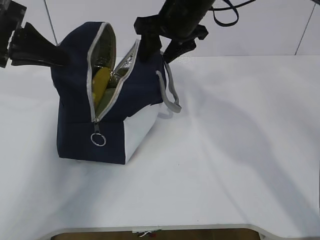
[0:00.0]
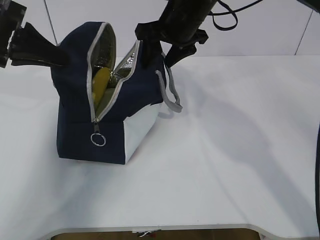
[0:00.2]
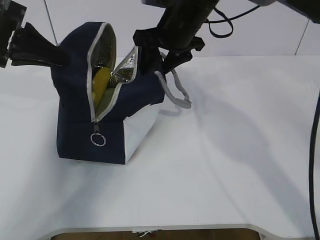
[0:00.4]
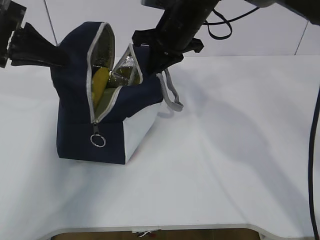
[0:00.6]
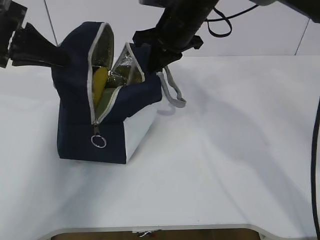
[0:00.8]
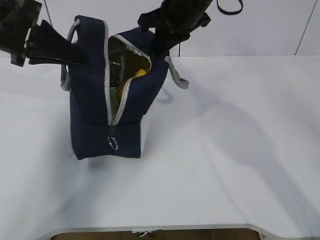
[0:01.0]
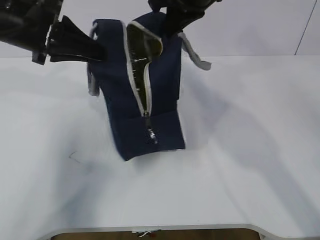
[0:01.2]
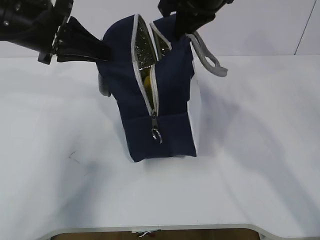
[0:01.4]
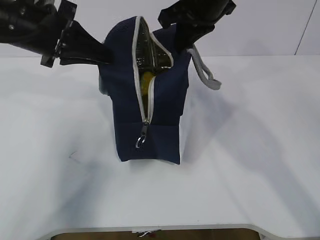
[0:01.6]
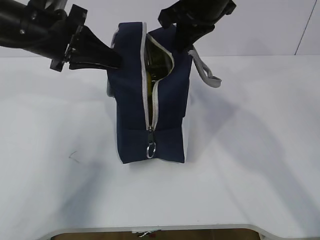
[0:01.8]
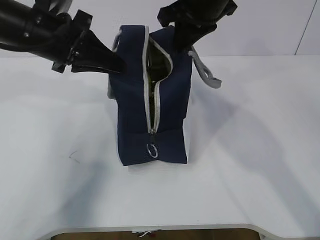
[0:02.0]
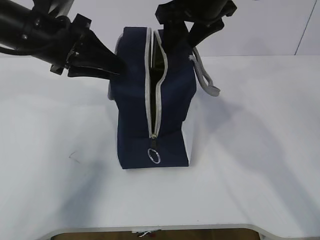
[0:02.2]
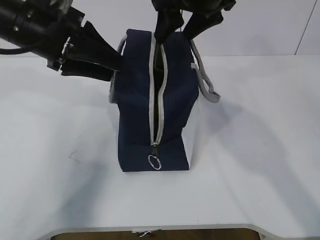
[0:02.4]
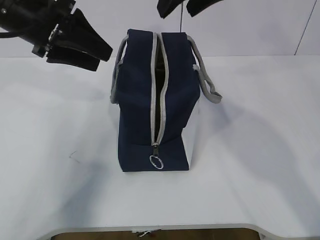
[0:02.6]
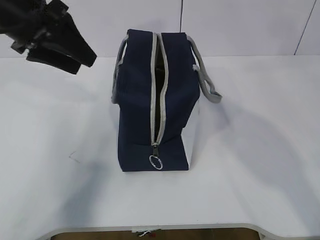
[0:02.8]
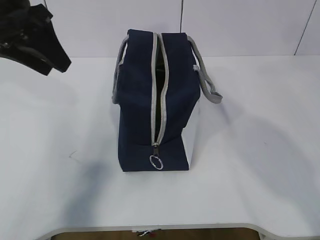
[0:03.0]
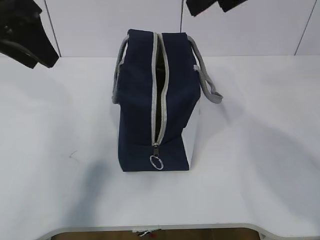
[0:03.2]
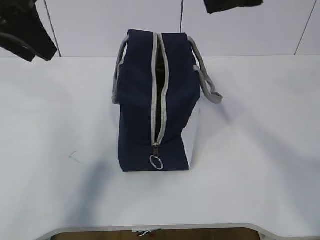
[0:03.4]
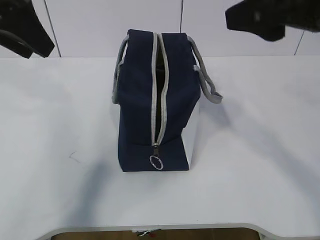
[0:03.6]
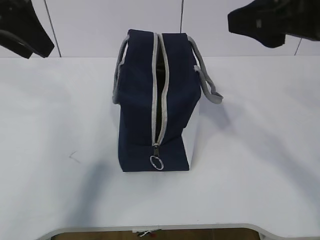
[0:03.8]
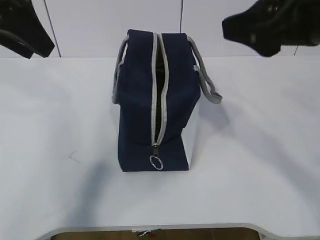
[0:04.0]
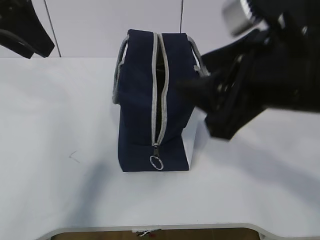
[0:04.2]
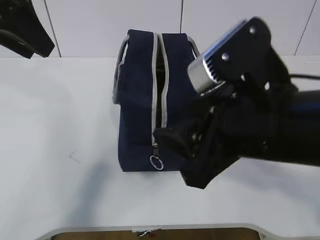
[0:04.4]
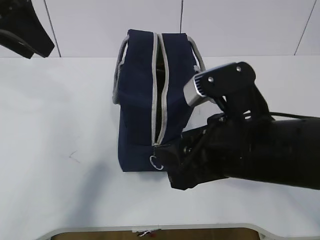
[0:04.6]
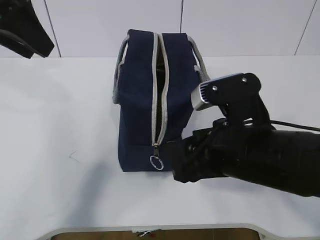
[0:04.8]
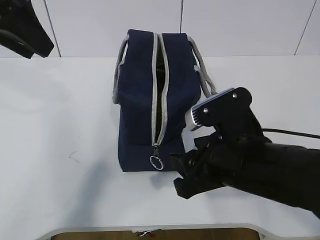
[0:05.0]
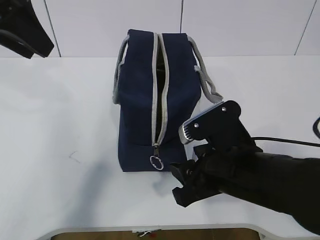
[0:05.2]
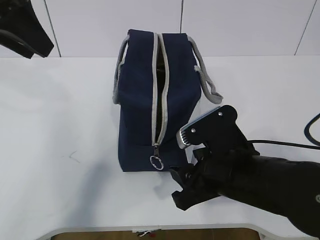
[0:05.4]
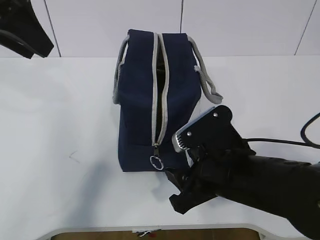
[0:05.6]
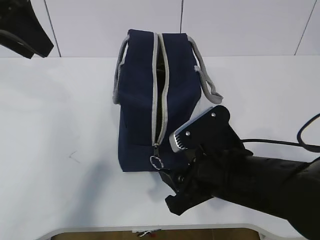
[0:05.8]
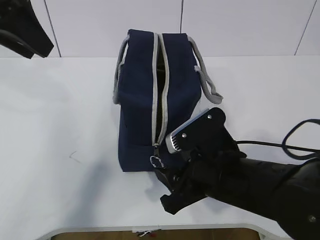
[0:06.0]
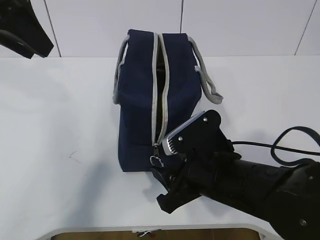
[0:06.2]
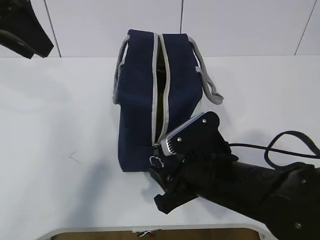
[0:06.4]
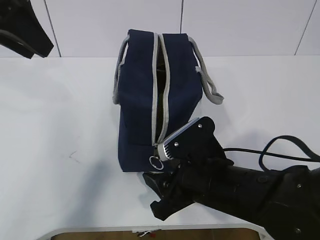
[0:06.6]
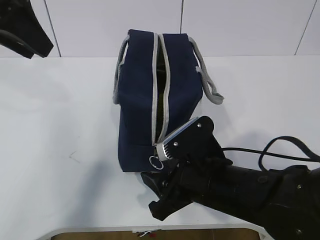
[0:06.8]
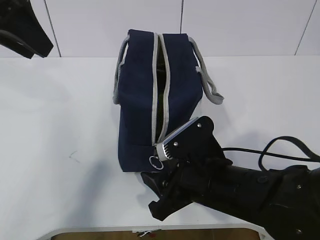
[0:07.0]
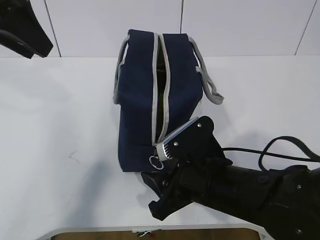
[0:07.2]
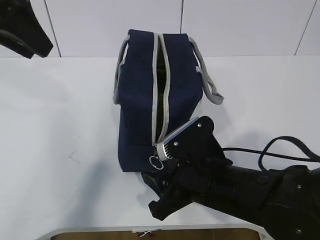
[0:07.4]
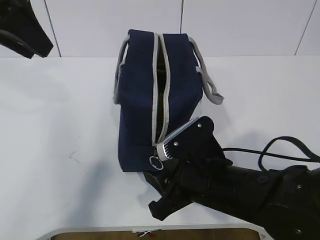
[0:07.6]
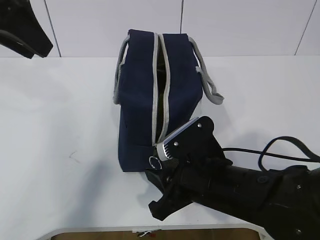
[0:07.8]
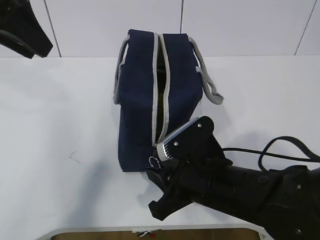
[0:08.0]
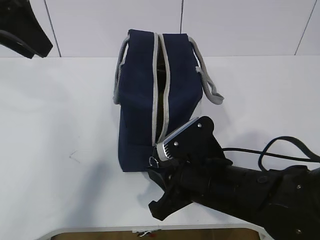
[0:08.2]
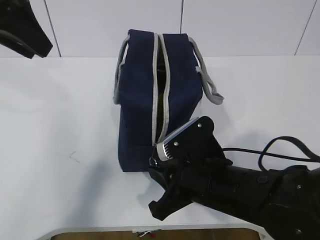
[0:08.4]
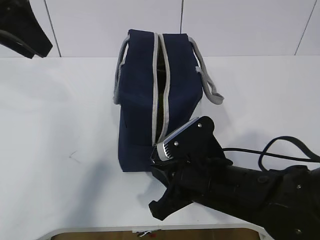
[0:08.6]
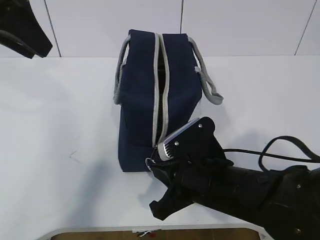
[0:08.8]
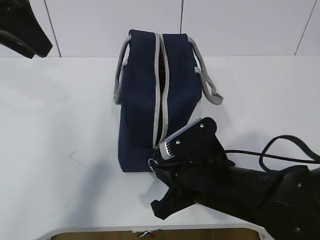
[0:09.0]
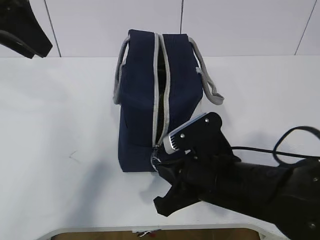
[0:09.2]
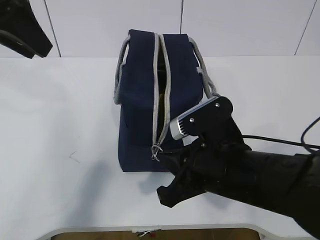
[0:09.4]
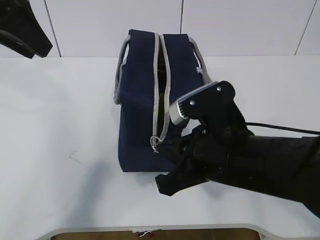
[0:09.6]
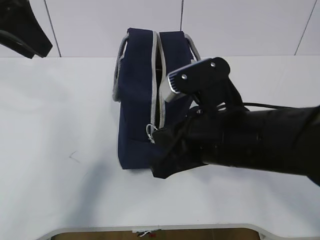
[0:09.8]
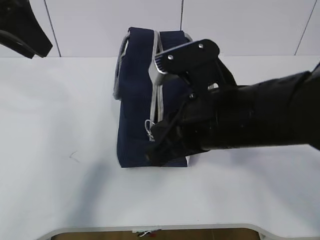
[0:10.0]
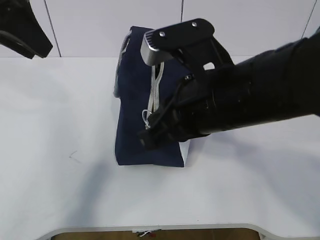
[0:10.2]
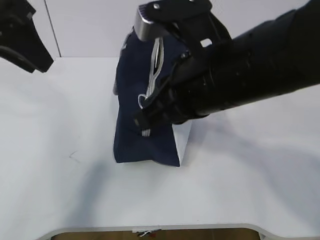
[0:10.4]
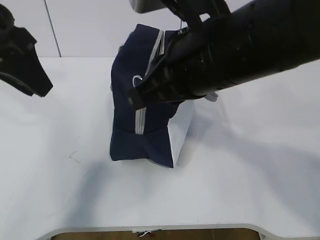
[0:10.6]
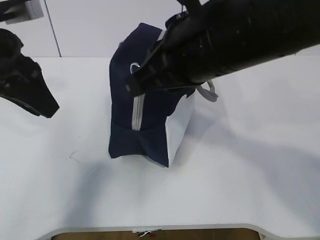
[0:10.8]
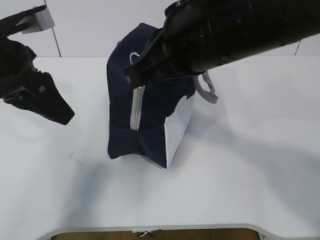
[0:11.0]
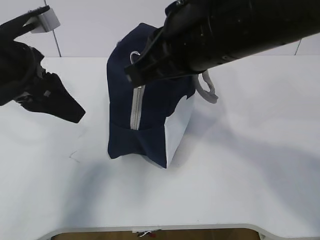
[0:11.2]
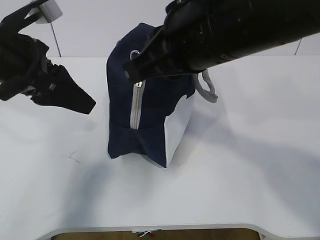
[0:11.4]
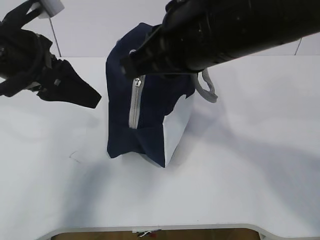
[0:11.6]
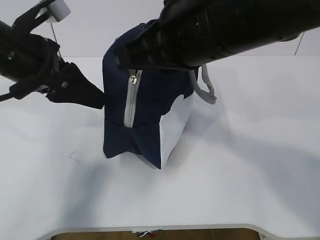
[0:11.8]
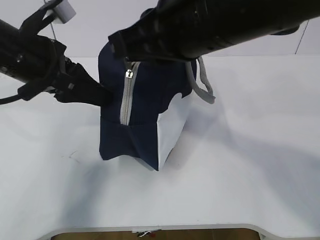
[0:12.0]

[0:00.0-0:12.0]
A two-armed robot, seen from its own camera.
0:00.0 to 0:01.6: The left gripper goes roughly 5 cm to the right. Meanwhile the right gripper ends up some 5 cm from where it was, and closes its fingers.
0:01.6 to 0:03.0: The left gripper opens; the right gripper moves upward and backward, about 10 cm, and opens.
0:03.0 to 0:04.4: The right gripper heads downward and backward, covering approximately 20 cm. Meanwhile the left gripper ends up about 5 cm from where it was.
0:04.4 to 0:06.0: The right gripper shifts approximately 10 cm downward.
0:06.0 to 0:07.6: There are only small adjustments of the grippers.
0:07.6 to 0:09.0: The right gripper closes up.
0:09.0 to 0:10.4: The right gripper is displaced upward by some 15 cm.
0:10.4 to 0:12.0: The right gripper goes about 5 cm upward. Meanwhile the left gripper heads downward, covering roughly 10 cm.

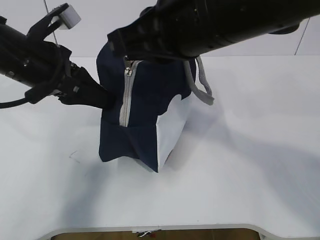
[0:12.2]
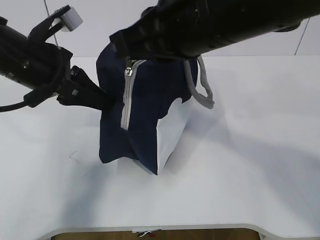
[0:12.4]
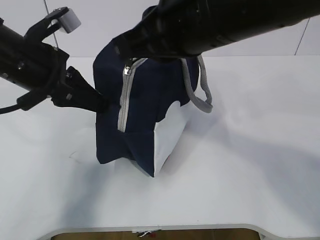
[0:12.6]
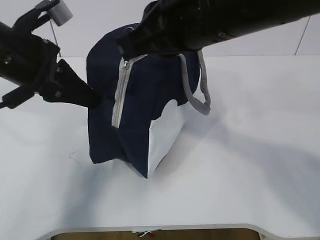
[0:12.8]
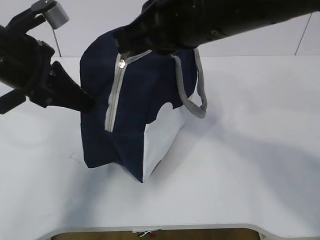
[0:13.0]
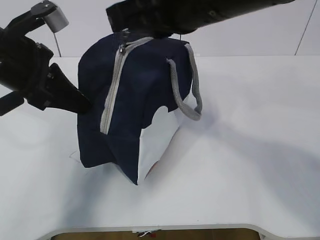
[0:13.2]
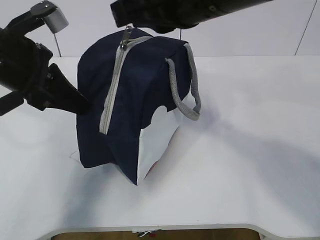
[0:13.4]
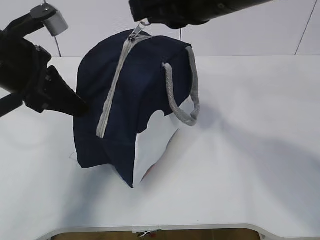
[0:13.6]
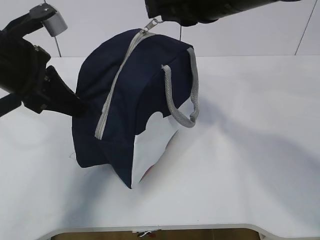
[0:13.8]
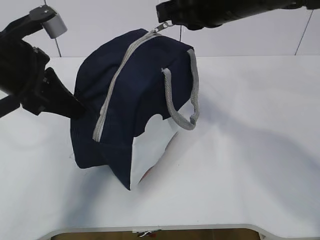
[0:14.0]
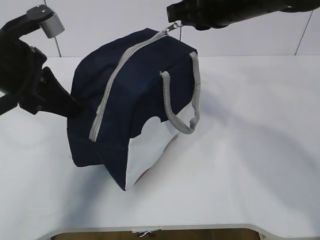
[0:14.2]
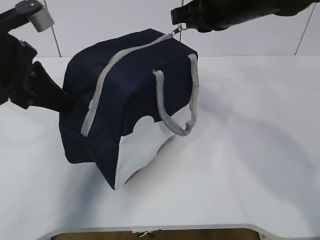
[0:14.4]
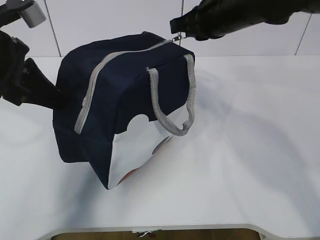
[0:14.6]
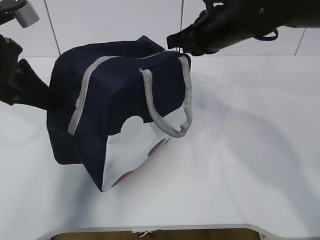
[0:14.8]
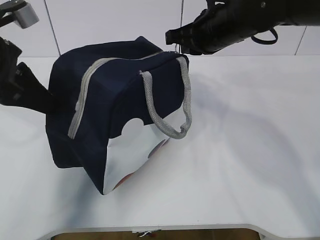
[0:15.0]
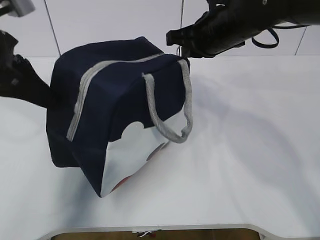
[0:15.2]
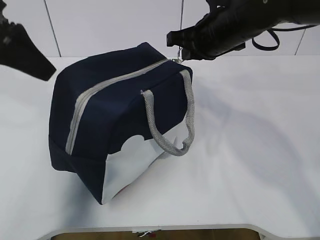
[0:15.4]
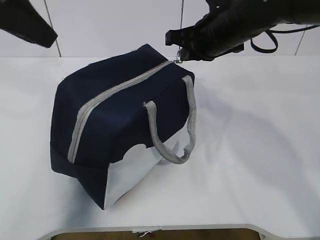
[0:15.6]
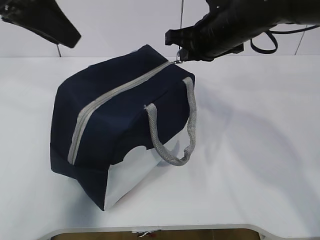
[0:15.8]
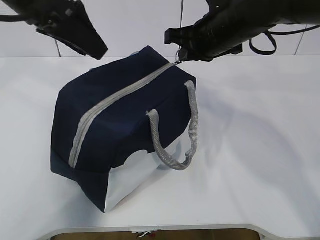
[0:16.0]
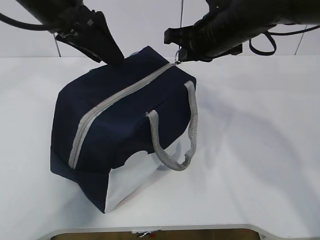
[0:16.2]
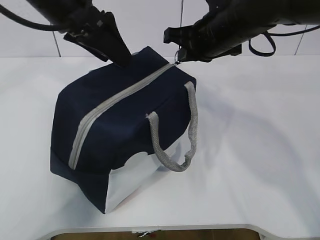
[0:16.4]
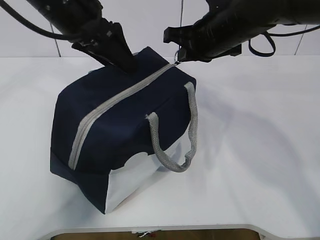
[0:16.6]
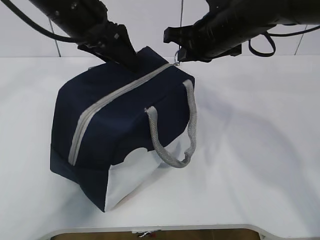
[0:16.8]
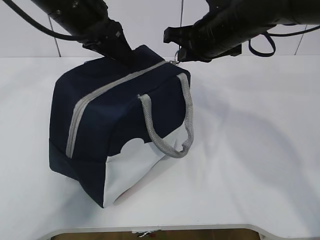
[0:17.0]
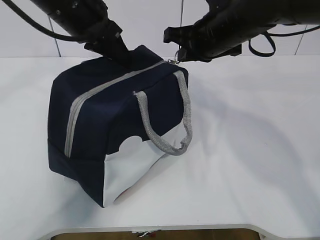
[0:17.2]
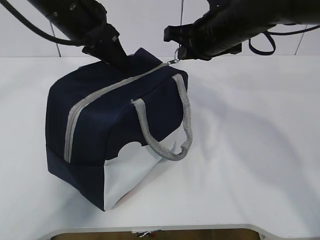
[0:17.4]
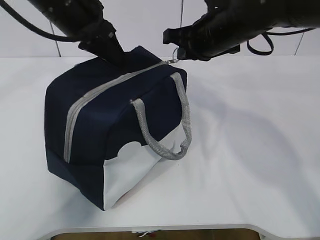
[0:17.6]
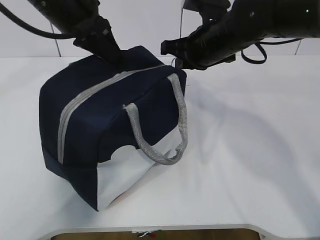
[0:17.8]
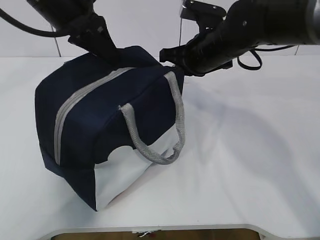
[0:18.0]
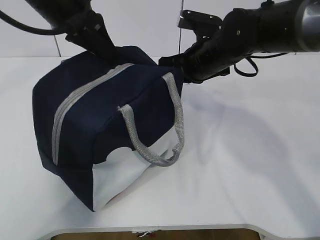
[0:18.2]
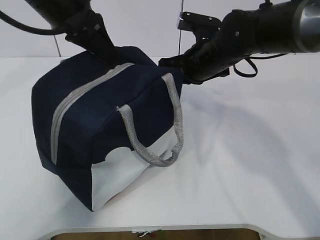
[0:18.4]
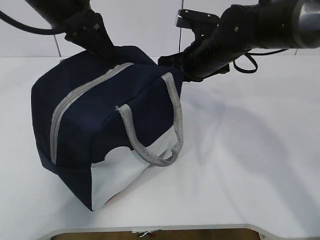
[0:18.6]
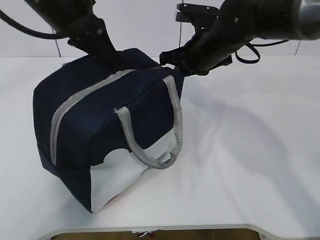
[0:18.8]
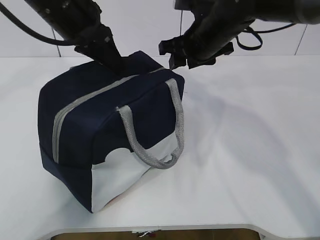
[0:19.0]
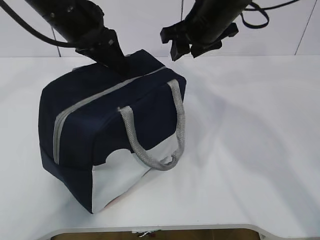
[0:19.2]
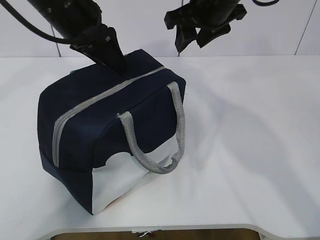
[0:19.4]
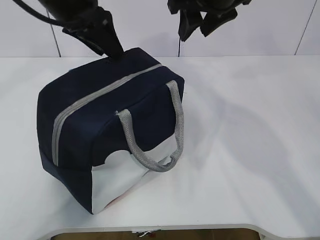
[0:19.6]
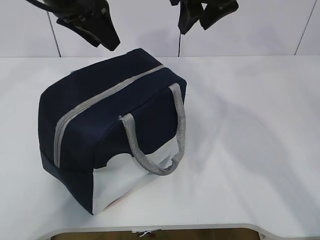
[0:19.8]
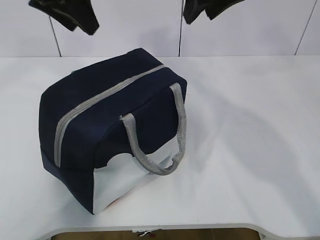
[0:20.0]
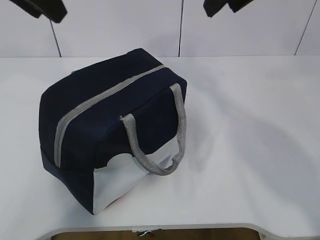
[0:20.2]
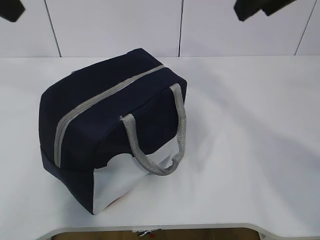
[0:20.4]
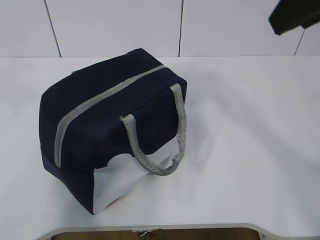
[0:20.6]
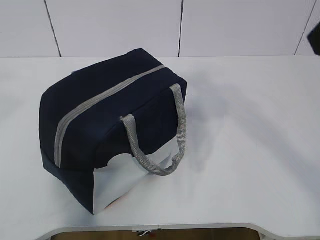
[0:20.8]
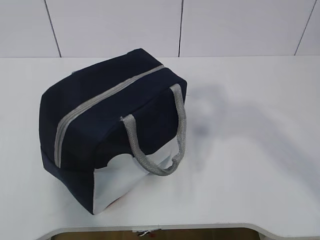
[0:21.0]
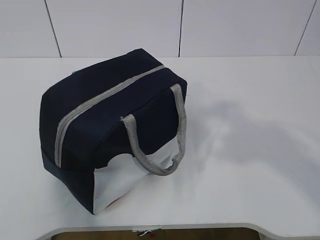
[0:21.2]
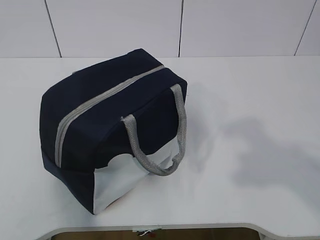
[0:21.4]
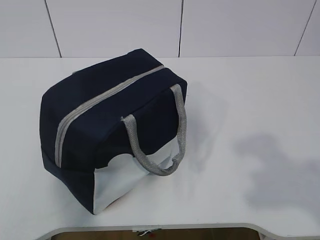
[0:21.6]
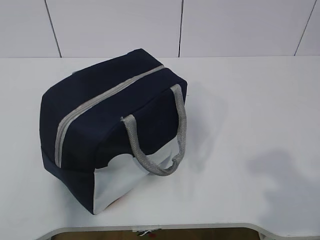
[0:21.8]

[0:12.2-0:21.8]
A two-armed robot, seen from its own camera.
Step, 0:12.2 to 0:20.0: zip up the zipper to close the bag.
0:12.2 to 0:13.8: The left gripper closes up; the right gripper heads forward, covering approximately 5 cm.
0:13.8 to 0:15.4: The left gripper moves upward, about 5 cm, and opens up. The right gripper shifts some 15 cm forward and downward.
0:15.4 to 0:17.0: The left gripper is displaced to the right and forward by roughly 15 cm.
0:17.0 to 0:18.6: The left gripper closes its fingers, while the right gripper goes about 5 cm downward.
0:18.6 to 0:20.2: The right gripper shifts some 20 cm upward and backward, and opens its fingers, while the left gripper moves upward, approximately 5 cm, and opens its fingers.
0:20.2 to 0:21.8: The right gripper travels backward and to the right by about 35 cm, while the left gripper moves backward and to the left, approximately 35 cm.
